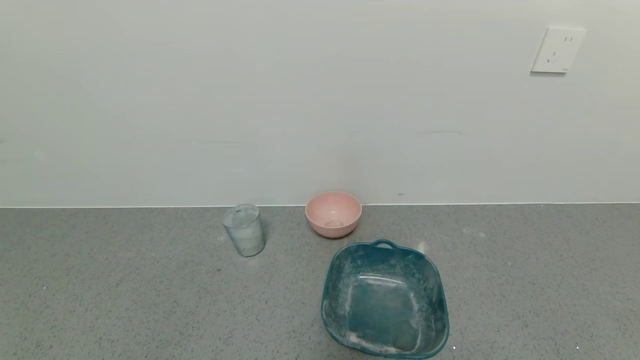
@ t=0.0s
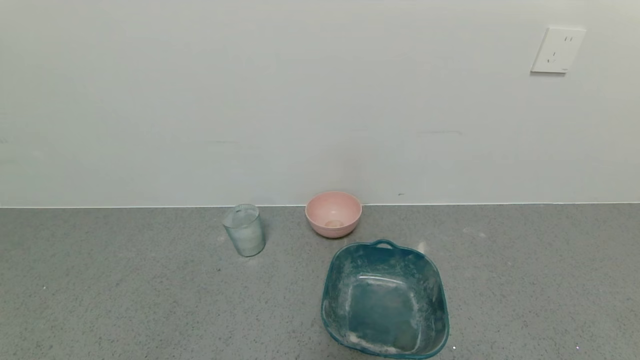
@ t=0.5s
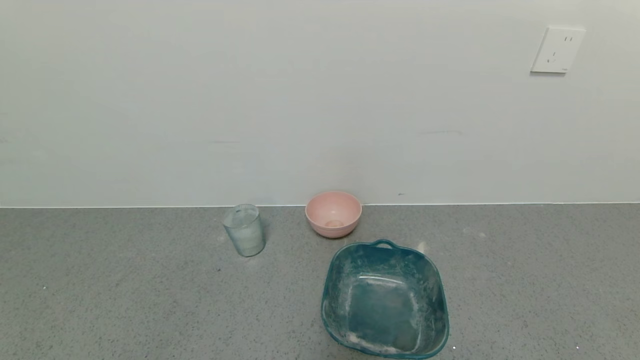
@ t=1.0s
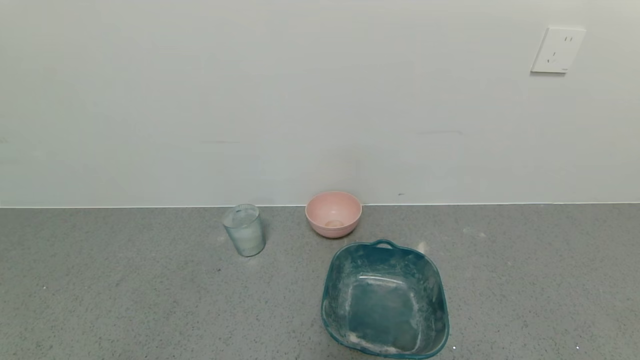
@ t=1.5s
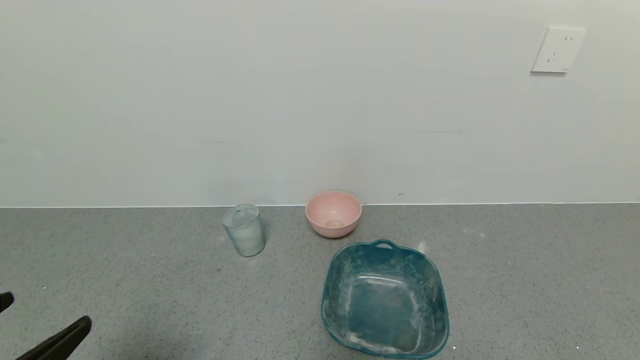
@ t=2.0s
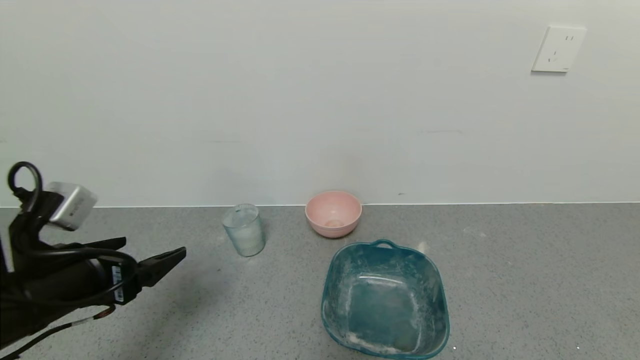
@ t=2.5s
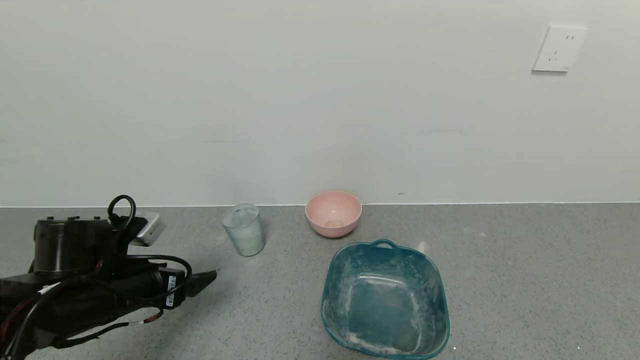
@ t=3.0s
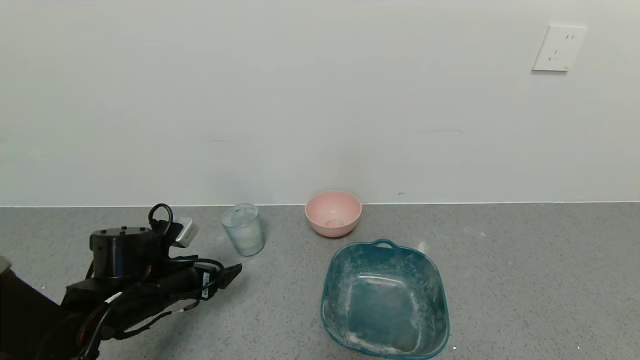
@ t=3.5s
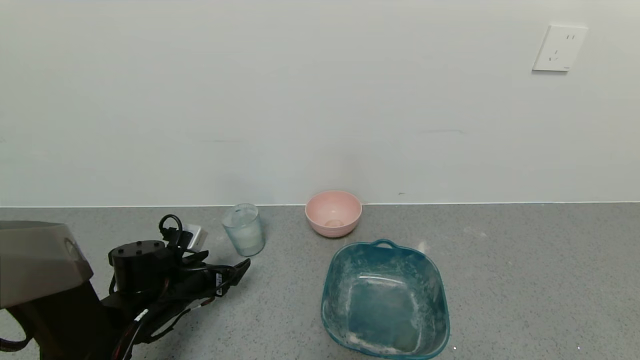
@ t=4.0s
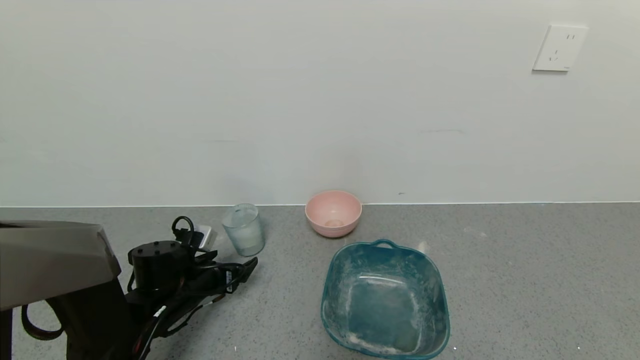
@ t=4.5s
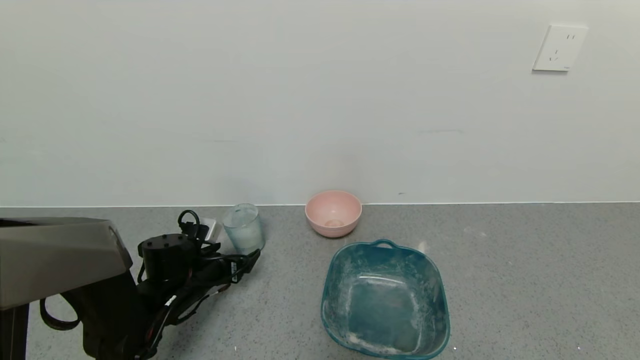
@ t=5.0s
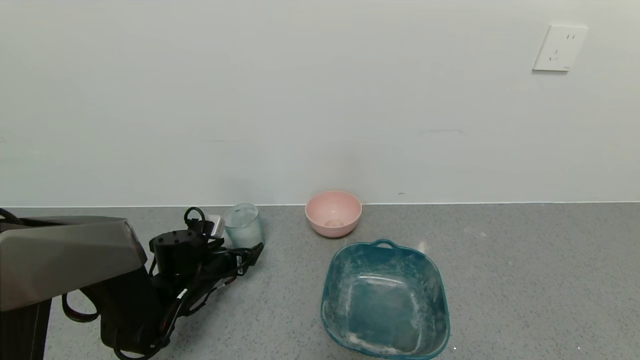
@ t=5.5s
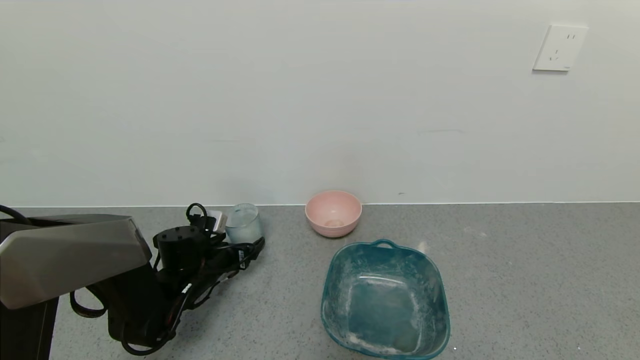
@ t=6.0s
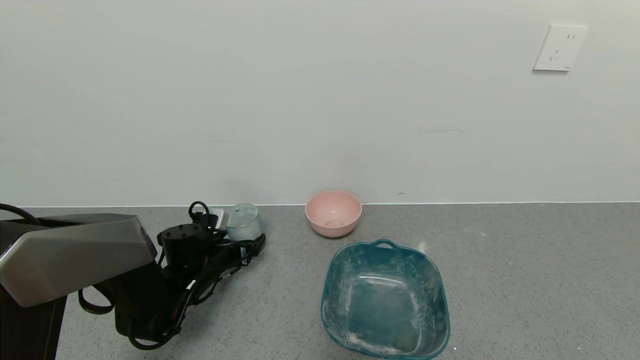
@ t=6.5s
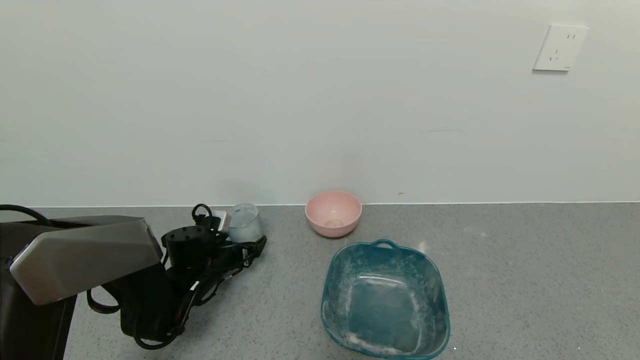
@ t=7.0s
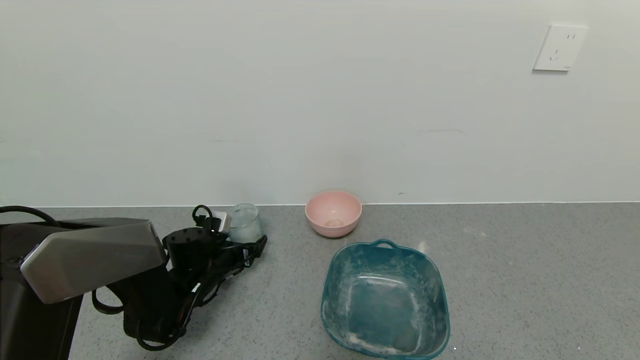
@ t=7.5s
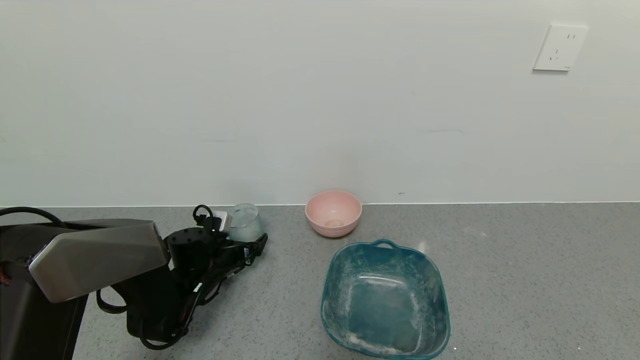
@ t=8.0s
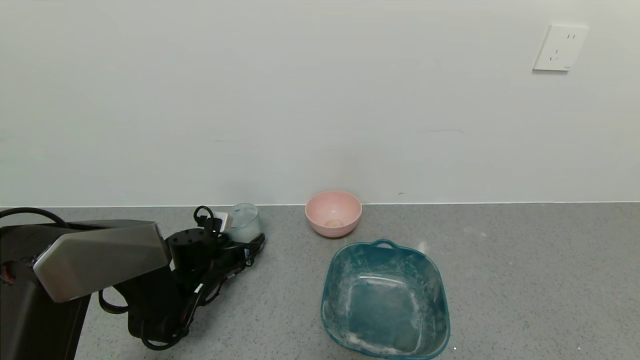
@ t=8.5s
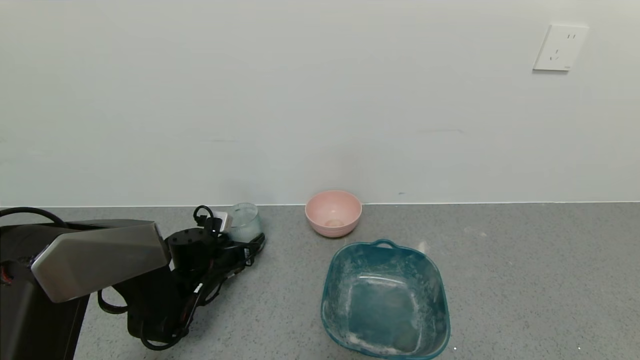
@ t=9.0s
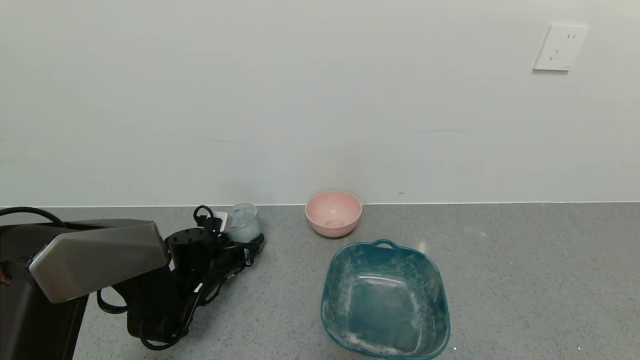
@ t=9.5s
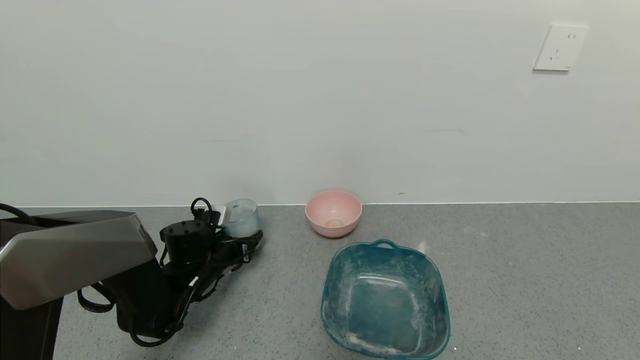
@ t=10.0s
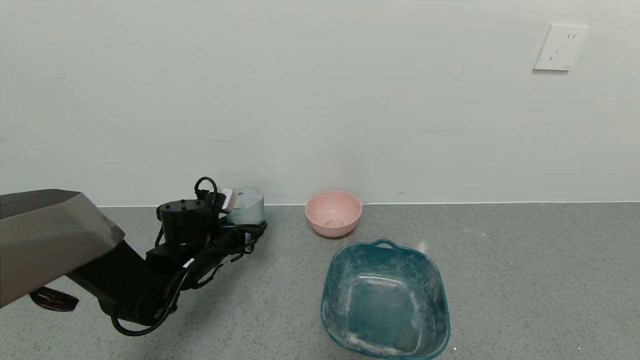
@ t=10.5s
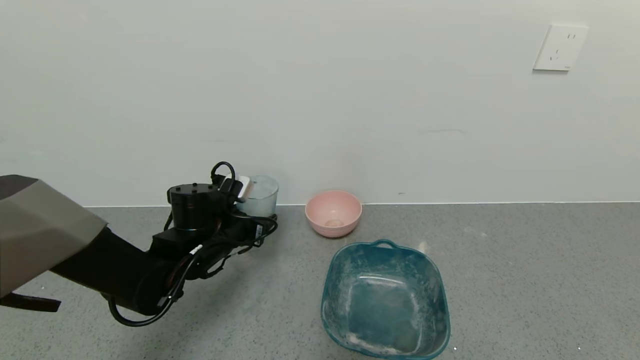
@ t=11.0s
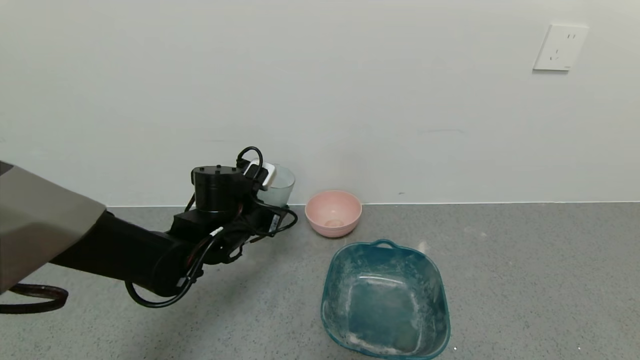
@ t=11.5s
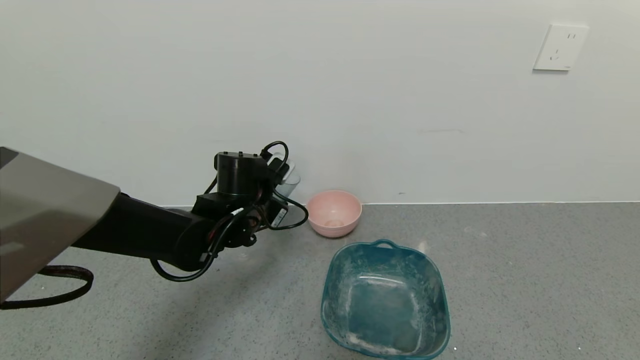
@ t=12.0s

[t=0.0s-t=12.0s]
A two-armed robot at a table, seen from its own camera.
Task of the whole recording: use a gripper to pick up the cup and pour the powder into a bowl or tray.
Step, t=0.0s to t=8.5s: Grasp the glass of powder with the left gripper.
t=0.0s to t=2.0s: The left gripper travels upward and forward by some 15 cm.
t=2.0s to t=4.0s: The left gripper moves forward and downward, approximately 30 cm.
t=4.0s to t=6.0s: The left gripper travels forward by roughly 5 cm.
t=6.0s to t=8.0s: The grippers make only small movements.
t=8.0s to t=10.0s: The left gripper closes its fingers.
t=10.0s to t=12.0s: The left gripper is displaced upward and to the right by some 15 cm.

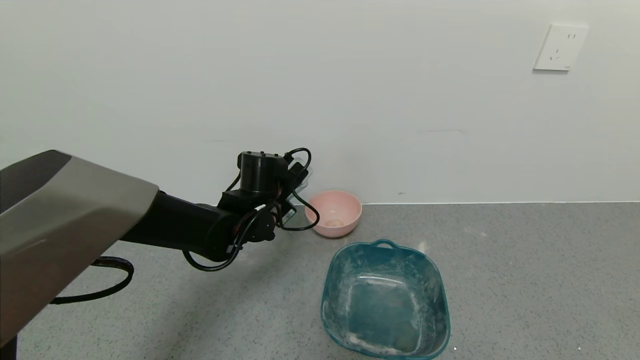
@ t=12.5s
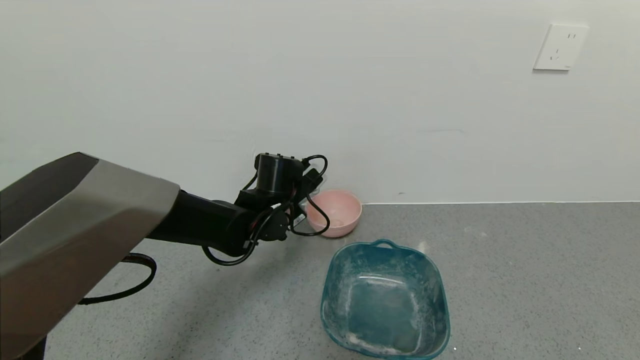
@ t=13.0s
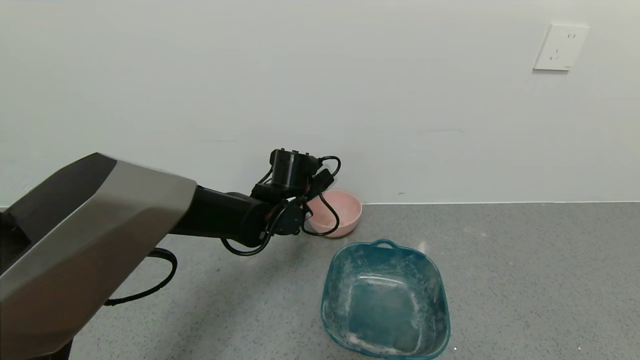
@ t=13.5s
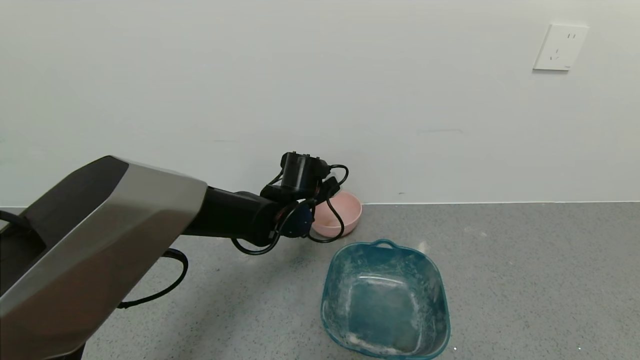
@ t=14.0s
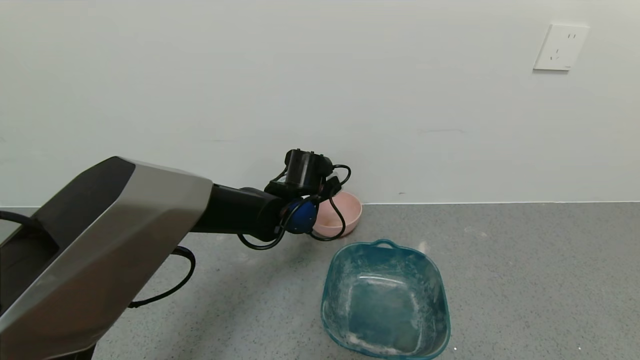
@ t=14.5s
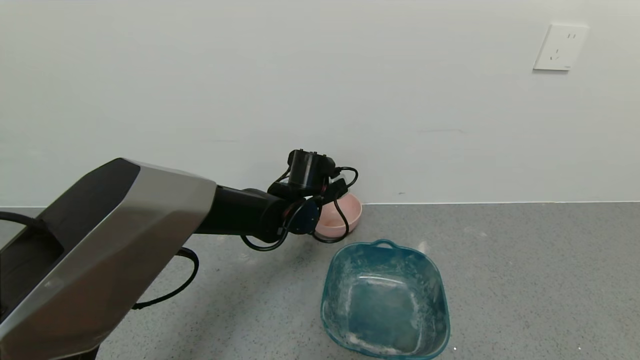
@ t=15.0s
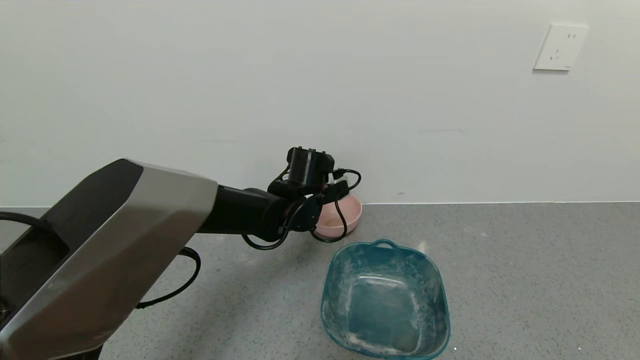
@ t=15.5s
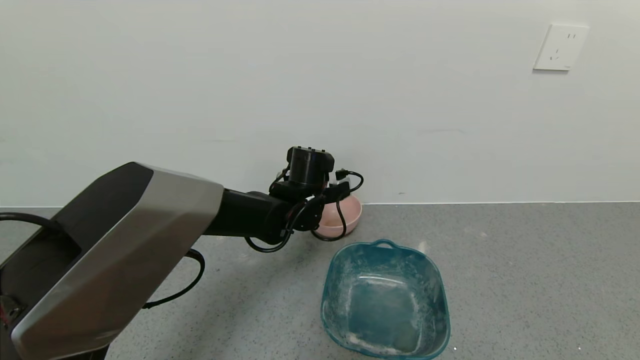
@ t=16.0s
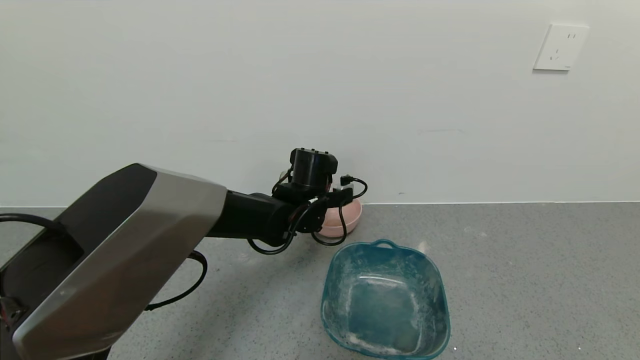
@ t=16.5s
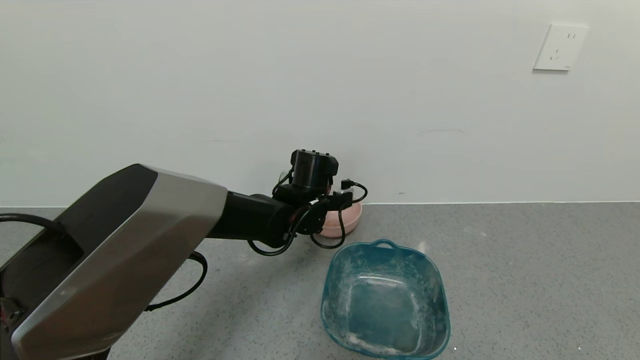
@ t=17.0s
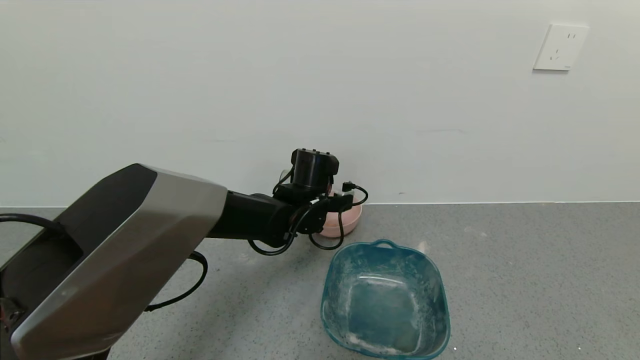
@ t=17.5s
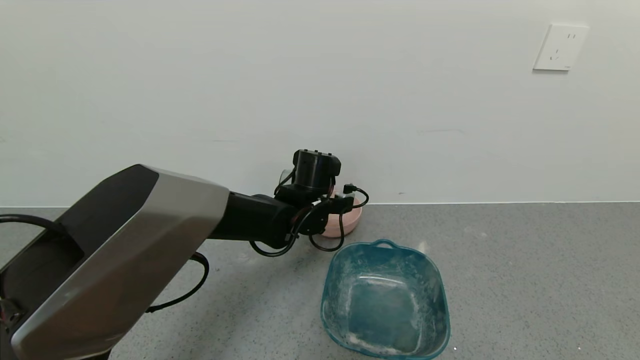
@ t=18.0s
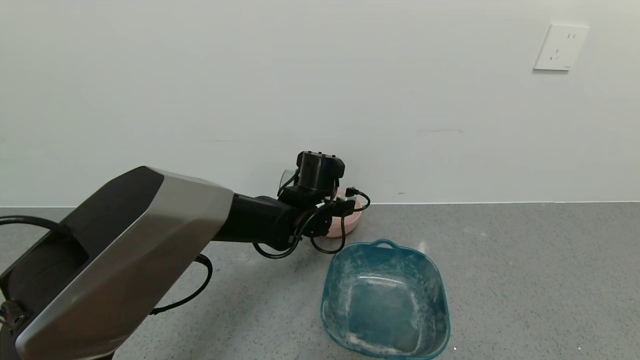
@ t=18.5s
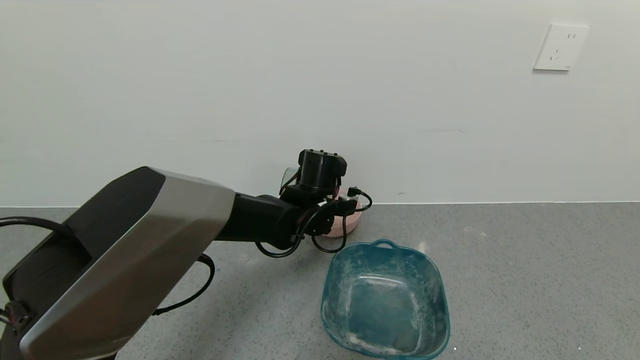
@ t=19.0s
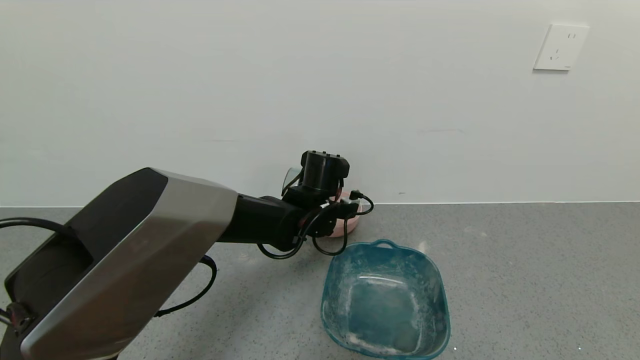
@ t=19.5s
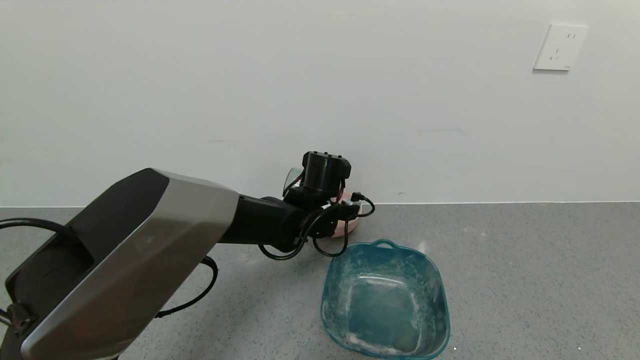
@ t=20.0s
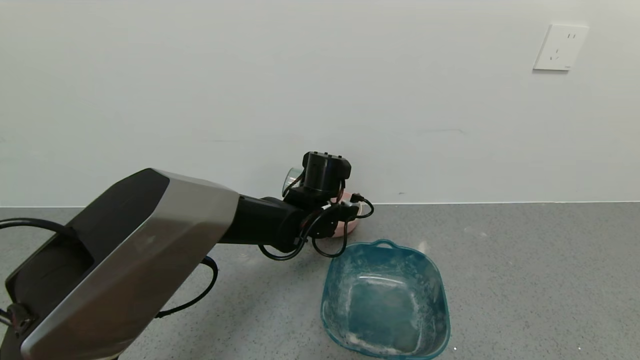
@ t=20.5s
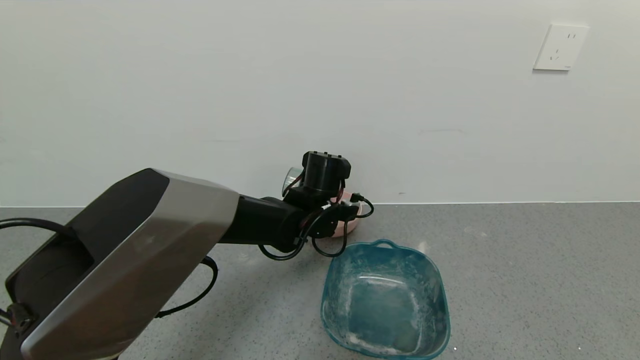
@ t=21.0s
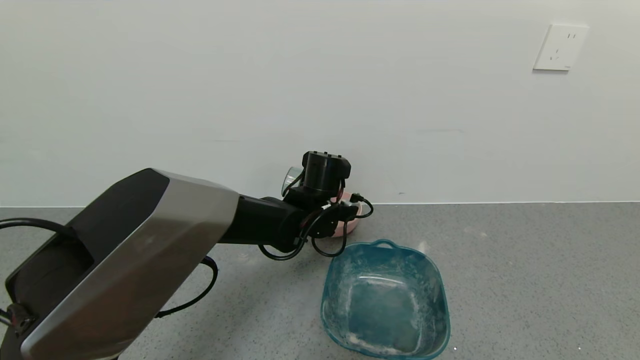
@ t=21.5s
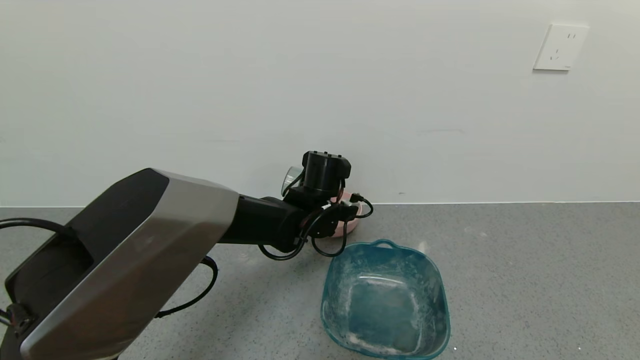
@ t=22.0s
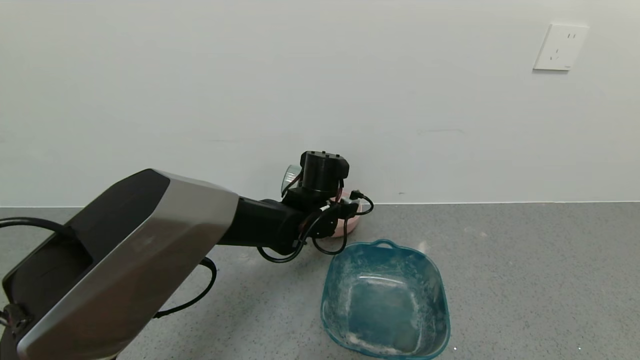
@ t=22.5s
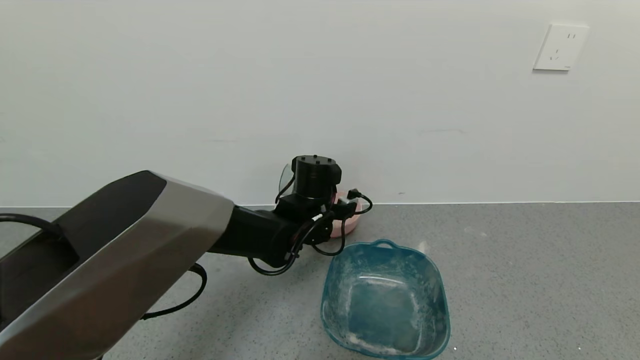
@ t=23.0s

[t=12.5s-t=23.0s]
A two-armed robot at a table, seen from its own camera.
Task of the whole recording: use a gripper to pick up the cup and pour the powder into a bowl or tray.
t=12.5s to t=14.5s: The left gripper heads to the right, covering about 5 cm.
t=16.5s to t=19.0s: The grippers stay close to where they were, moving slightly.
t=19.0s to t=23.0s: The grippers make only small movements.
